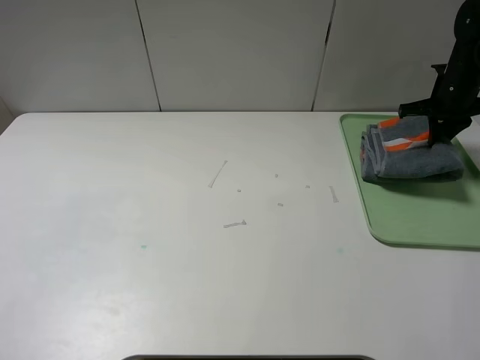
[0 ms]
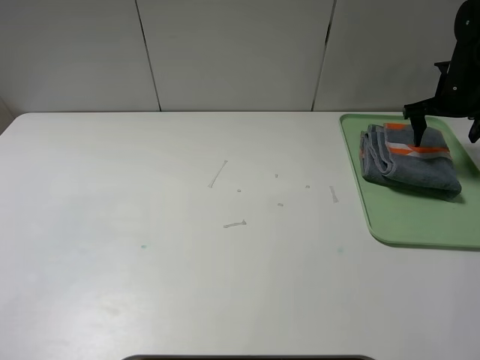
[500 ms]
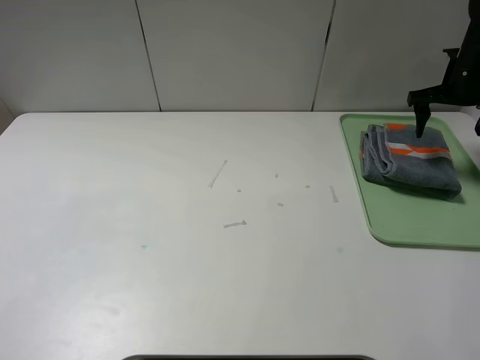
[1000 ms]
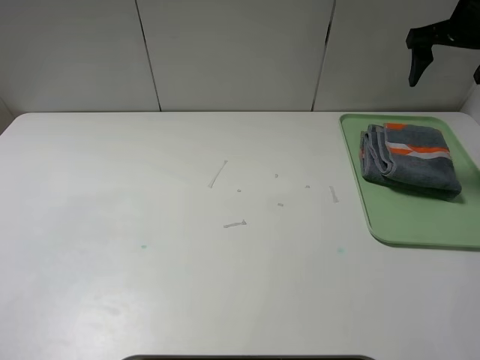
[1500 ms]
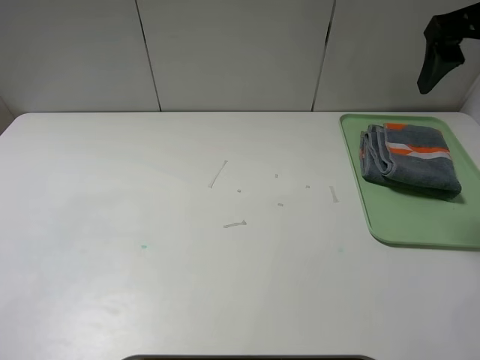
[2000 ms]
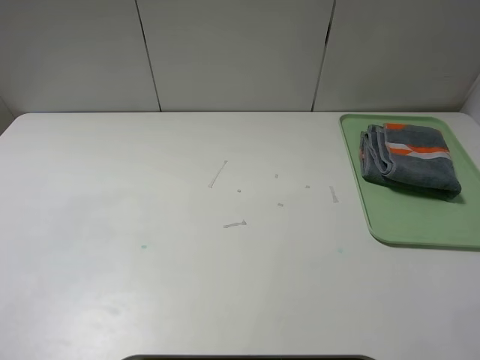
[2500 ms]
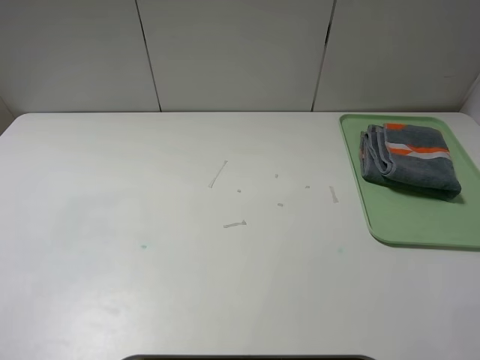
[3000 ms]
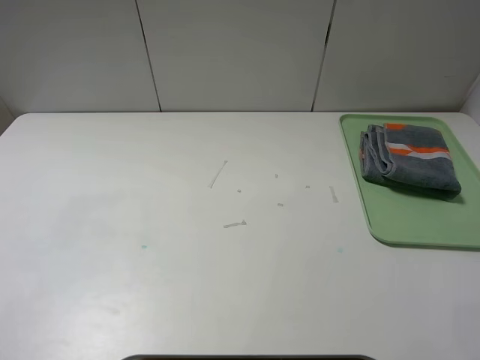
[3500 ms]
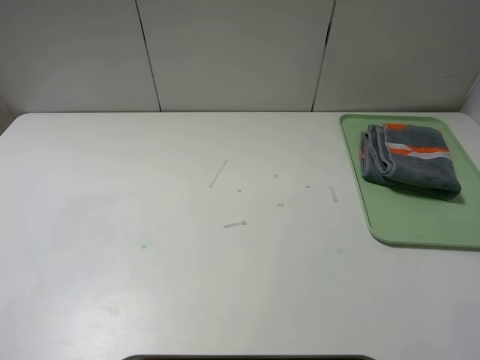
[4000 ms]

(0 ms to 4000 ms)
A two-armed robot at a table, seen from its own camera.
0 ms - 2000 ms: The right gripper goes about 30 cm upward, backward and to the left, and opens its fingers.
2000 ms - 4000 ms: The right gripper shifts some 30 cm backward.
